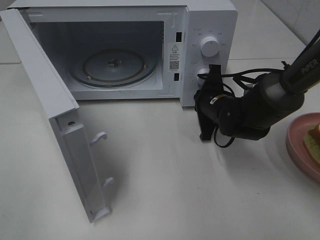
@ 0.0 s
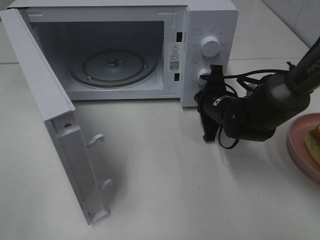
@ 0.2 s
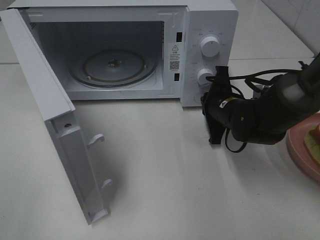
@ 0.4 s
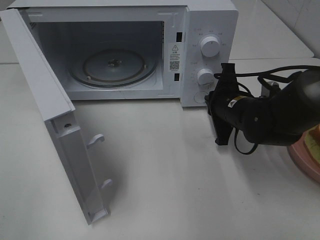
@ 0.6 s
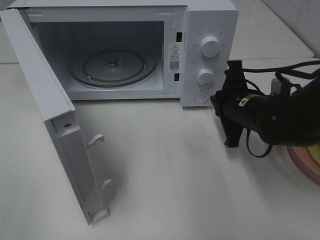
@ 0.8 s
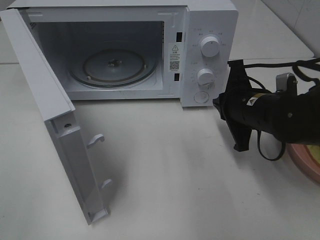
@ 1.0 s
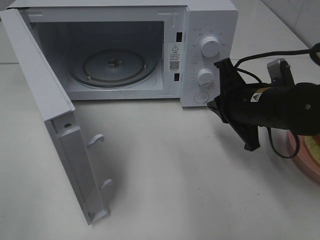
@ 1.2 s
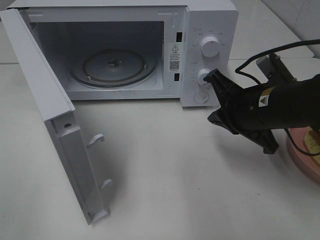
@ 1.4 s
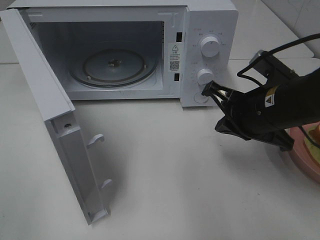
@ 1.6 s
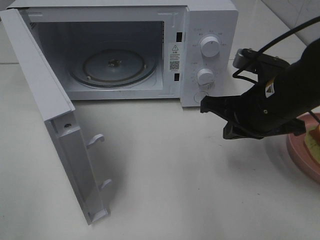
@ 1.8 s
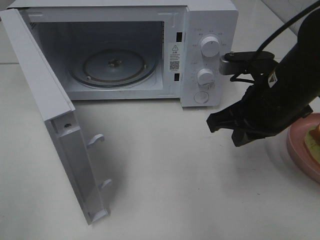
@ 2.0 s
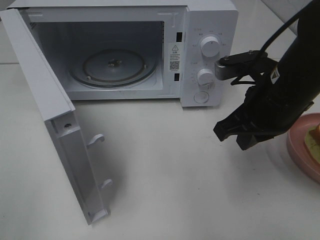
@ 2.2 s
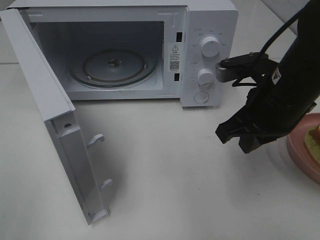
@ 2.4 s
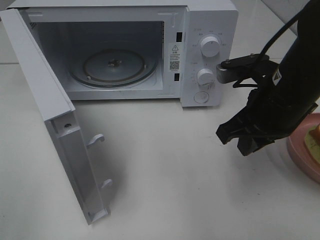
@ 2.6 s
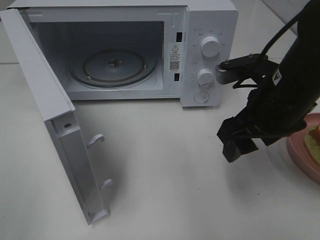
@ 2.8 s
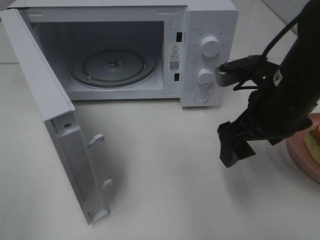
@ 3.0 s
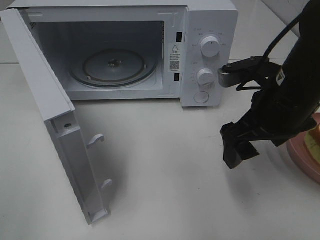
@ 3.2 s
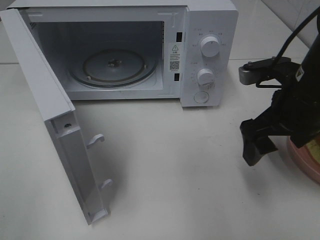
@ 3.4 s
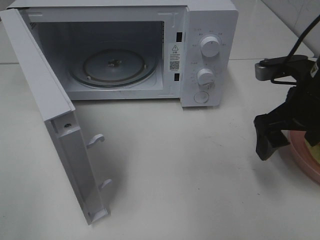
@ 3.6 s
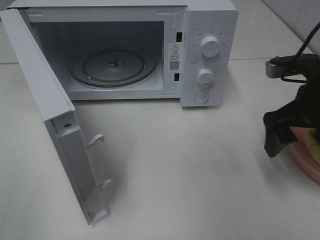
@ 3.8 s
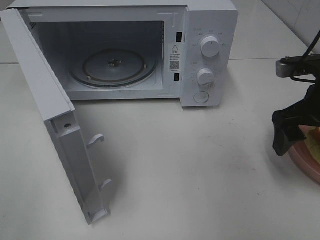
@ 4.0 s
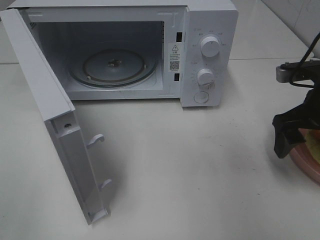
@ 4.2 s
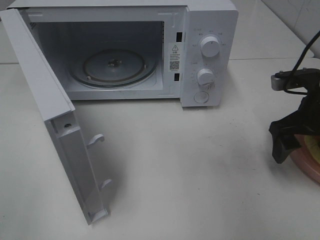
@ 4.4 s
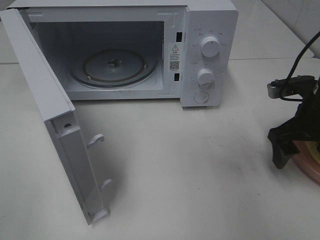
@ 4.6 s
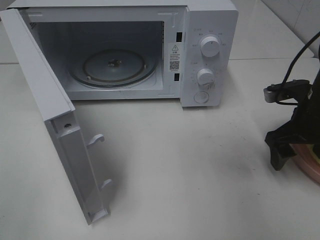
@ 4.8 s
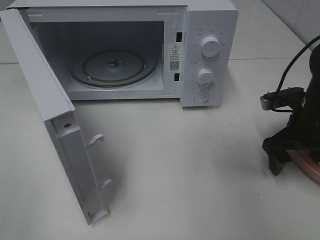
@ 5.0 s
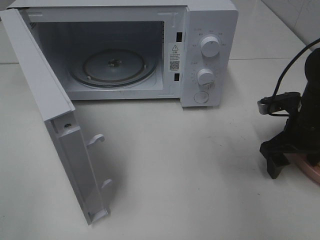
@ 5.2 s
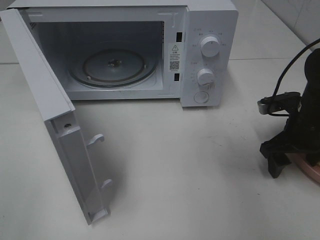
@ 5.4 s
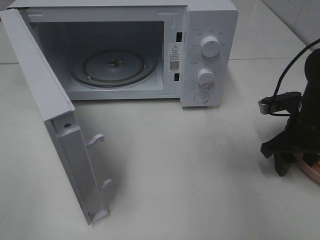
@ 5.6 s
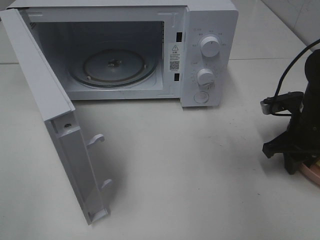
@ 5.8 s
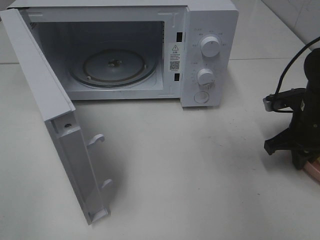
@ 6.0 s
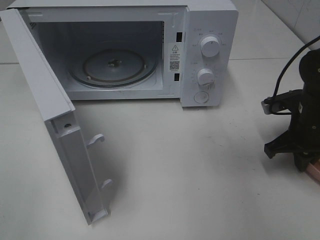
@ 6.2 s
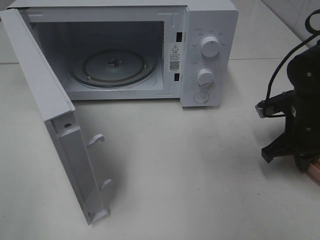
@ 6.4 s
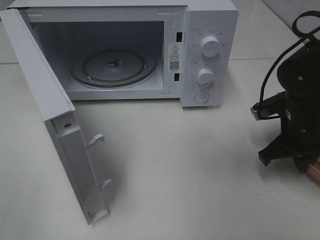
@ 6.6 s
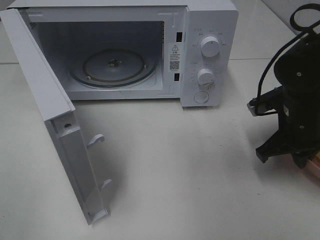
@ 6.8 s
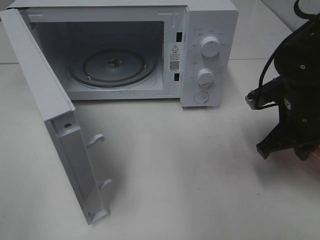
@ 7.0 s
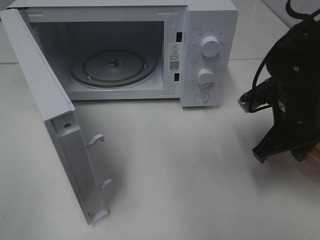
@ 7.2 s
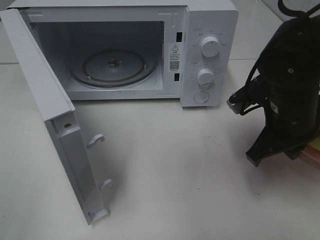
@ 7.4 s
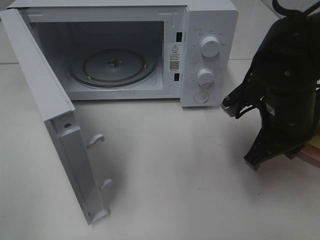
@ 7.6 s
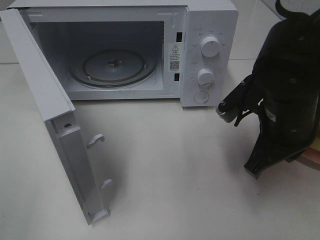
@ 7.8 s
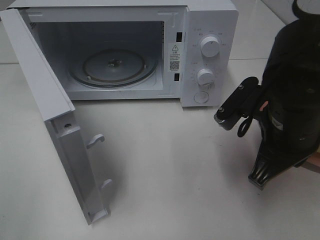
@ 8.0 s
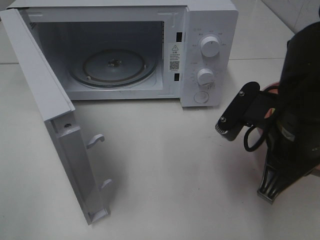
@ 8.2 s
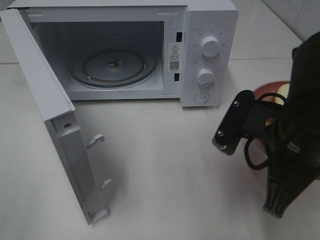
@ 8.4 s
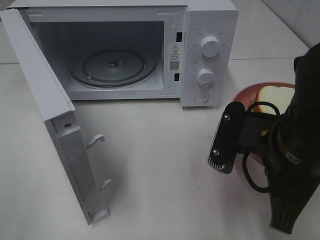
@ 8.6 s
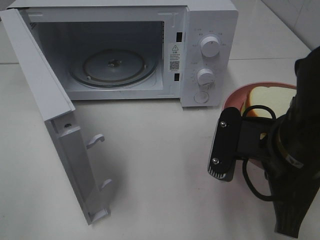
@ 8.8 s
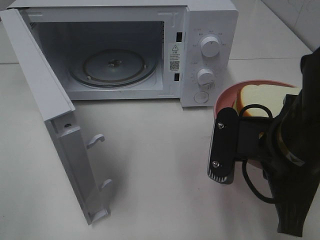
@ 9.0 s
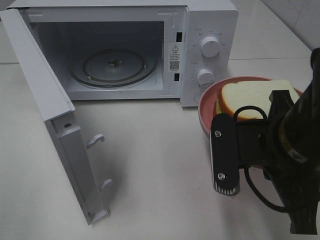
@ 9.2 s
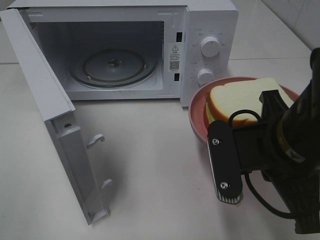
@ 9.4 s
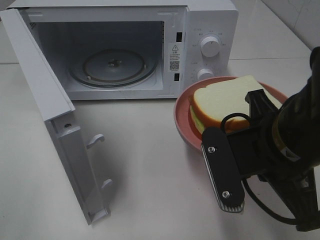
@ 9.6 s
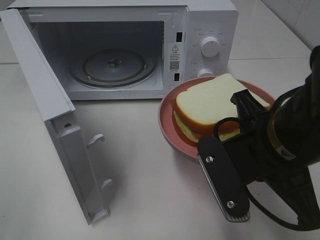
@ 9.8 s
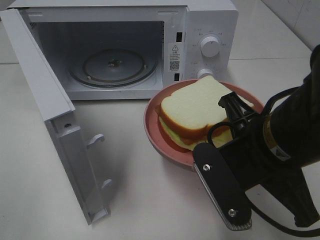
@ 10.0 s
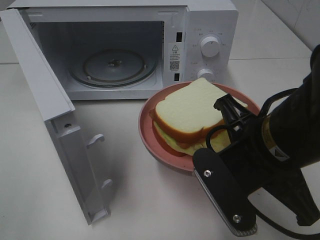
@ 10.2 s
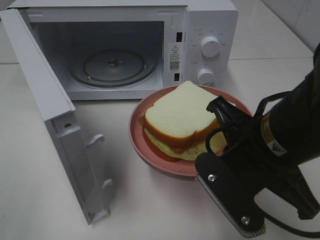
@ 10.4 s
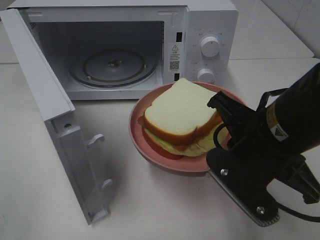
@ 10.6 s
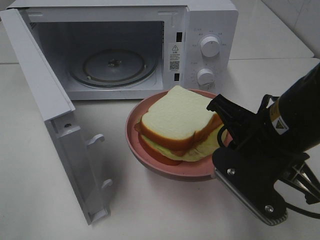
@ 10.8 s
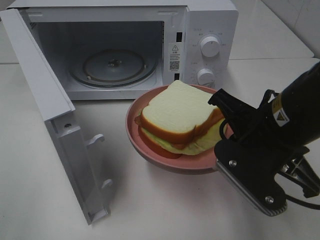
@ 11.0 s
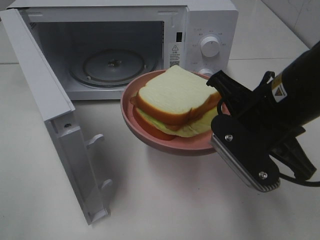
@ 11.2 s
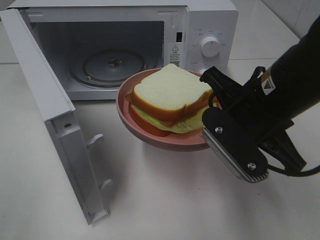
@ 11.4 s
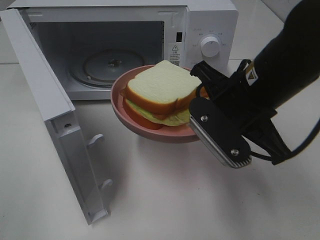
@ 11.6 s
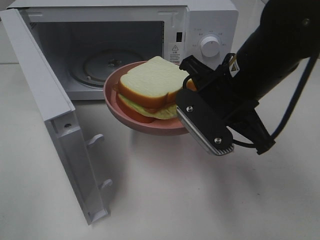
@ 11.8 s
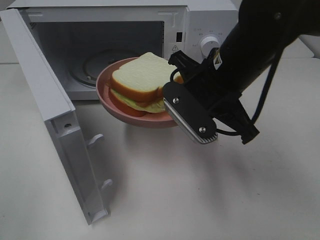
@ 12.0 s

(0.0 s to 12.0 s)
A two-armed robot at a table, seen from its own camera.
Task of the whole recording: Heat Sandwich.
Step, 0.6 s - 6.0 s: Right hand: grab the plate with the sandwich.
0.0 s - 1.6 s: The right gripper shifts about 15 cm backward and upward.
1.6 s - 3.0 s: The right gripper opens up.
3.0 s - 4.4 s: The right gripper heads to the right, covering approximately 10 cm.
4.4 s - 6.0 s: The right gripper heads downward, covering approximately 5 cm, and closes up.
6.0 s - 7.6 s: The right gripper is displaced to the left, upward and backward by roughly 15 cm.
7.6 s - 9.0 s: The right gripper travels backward by roughly 10 cm.
10.4 s - 12.0 s: The right gripper travels forward by approximately 10 cm.

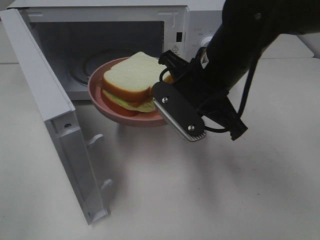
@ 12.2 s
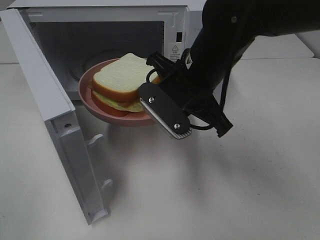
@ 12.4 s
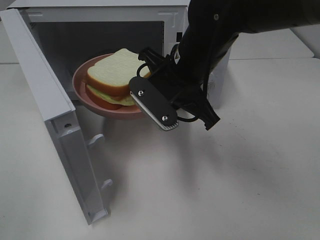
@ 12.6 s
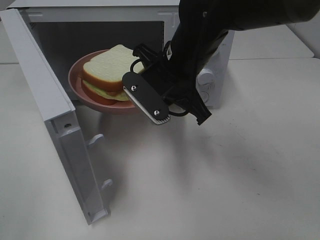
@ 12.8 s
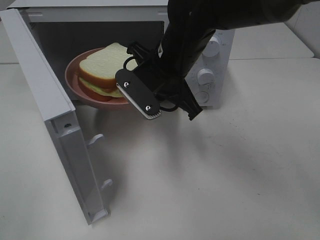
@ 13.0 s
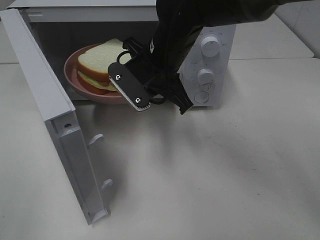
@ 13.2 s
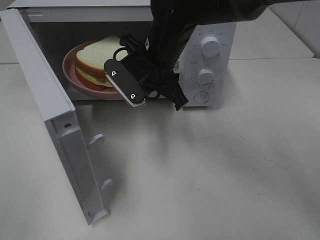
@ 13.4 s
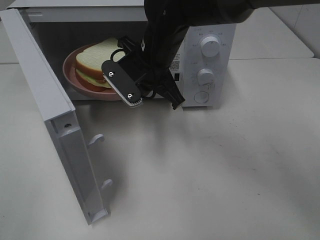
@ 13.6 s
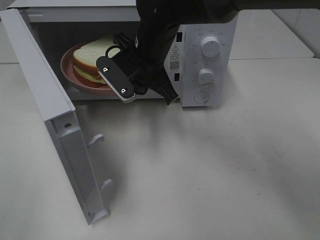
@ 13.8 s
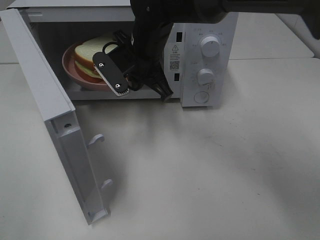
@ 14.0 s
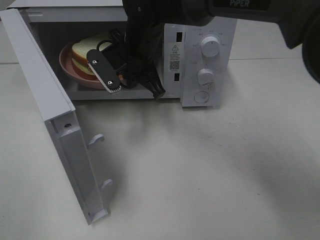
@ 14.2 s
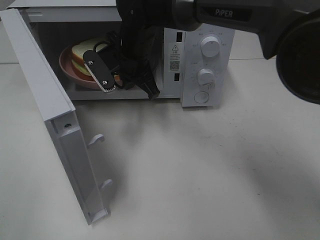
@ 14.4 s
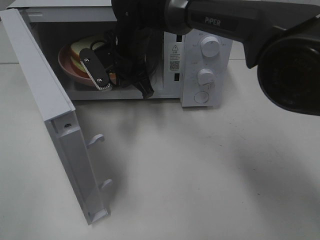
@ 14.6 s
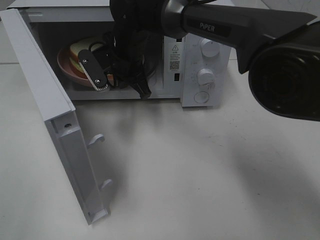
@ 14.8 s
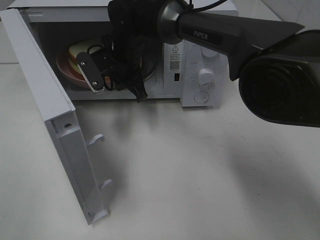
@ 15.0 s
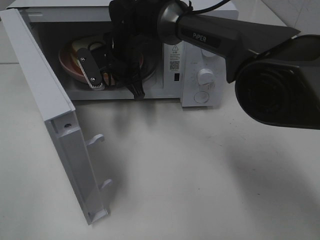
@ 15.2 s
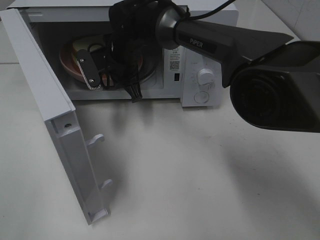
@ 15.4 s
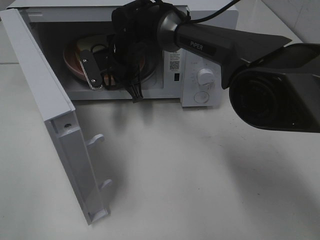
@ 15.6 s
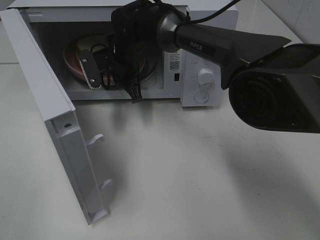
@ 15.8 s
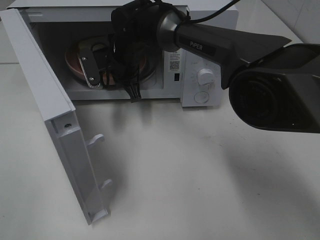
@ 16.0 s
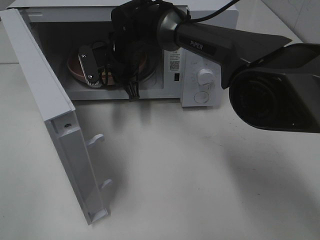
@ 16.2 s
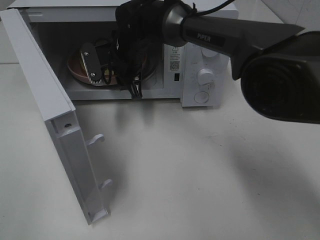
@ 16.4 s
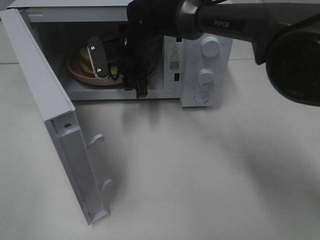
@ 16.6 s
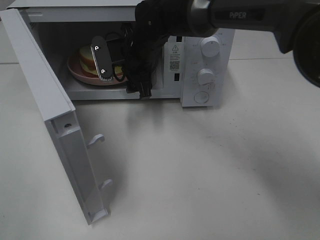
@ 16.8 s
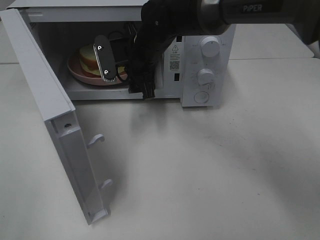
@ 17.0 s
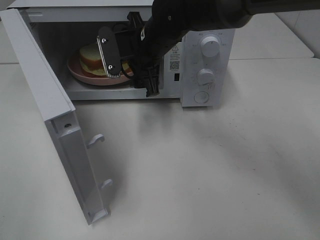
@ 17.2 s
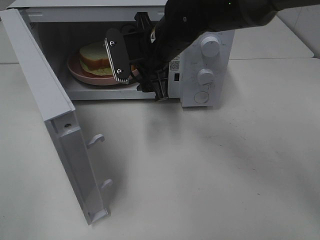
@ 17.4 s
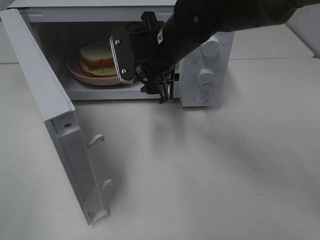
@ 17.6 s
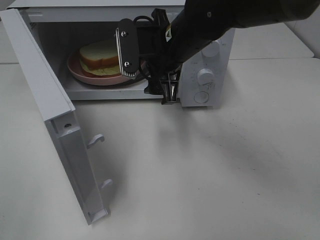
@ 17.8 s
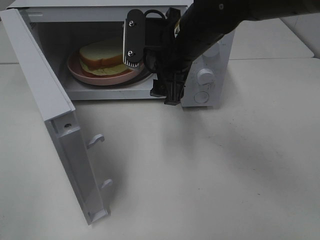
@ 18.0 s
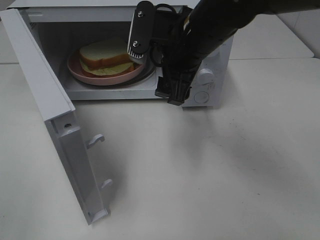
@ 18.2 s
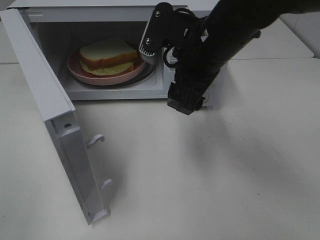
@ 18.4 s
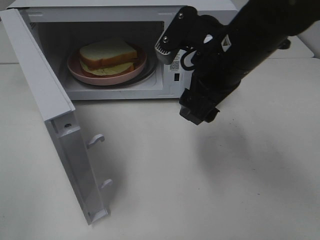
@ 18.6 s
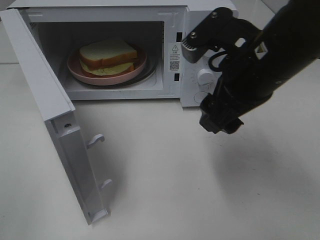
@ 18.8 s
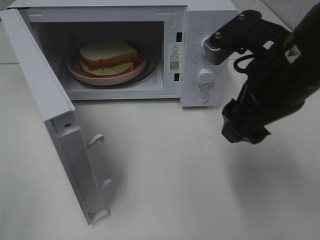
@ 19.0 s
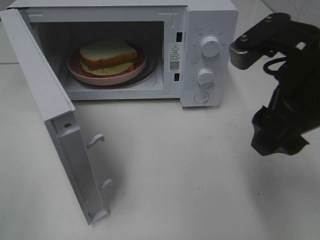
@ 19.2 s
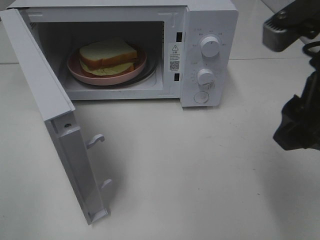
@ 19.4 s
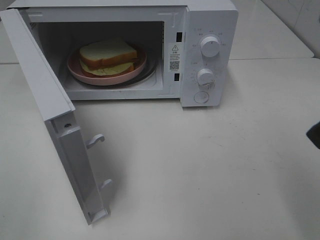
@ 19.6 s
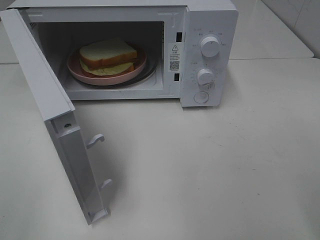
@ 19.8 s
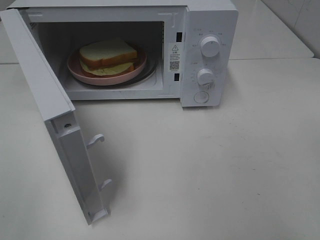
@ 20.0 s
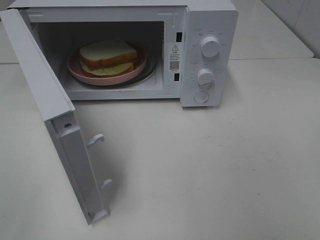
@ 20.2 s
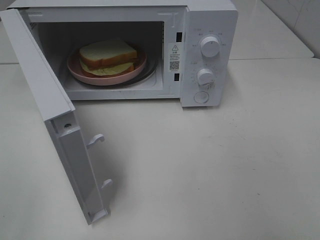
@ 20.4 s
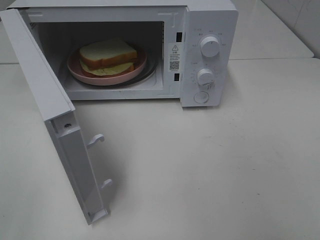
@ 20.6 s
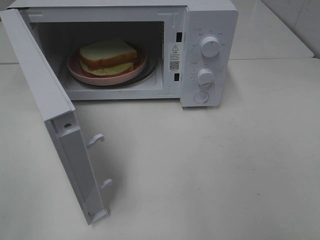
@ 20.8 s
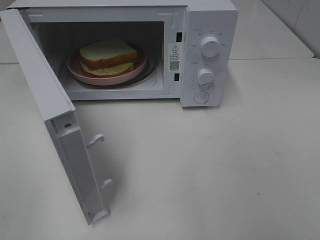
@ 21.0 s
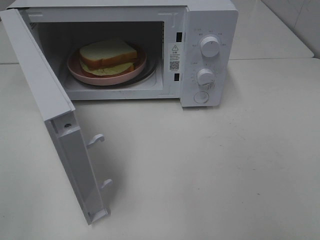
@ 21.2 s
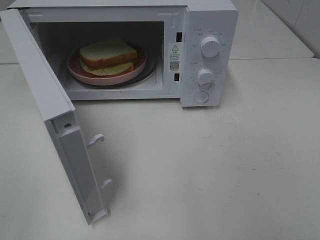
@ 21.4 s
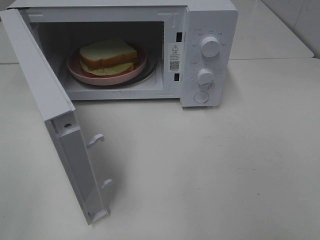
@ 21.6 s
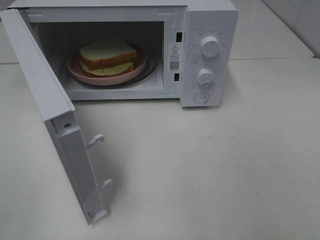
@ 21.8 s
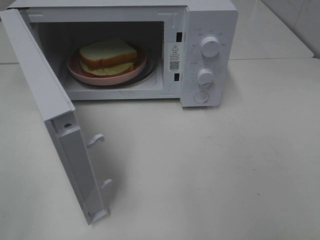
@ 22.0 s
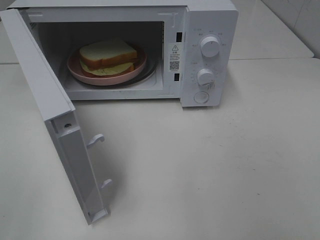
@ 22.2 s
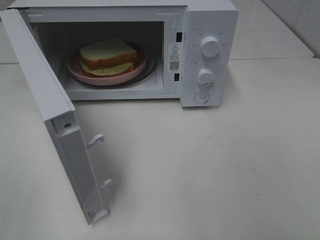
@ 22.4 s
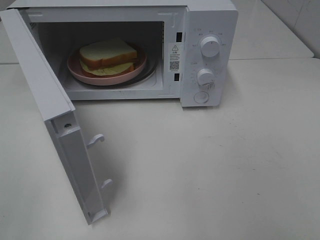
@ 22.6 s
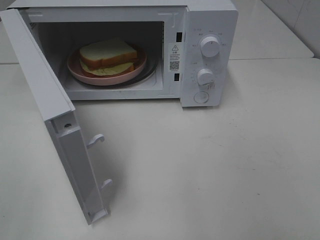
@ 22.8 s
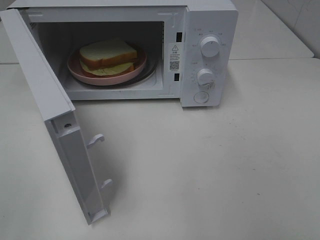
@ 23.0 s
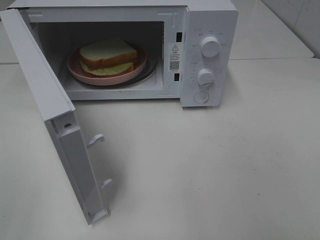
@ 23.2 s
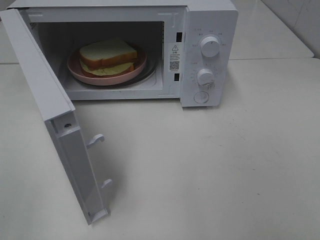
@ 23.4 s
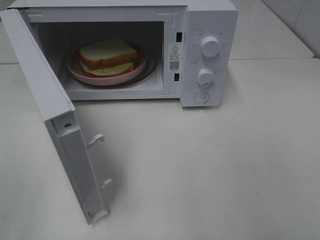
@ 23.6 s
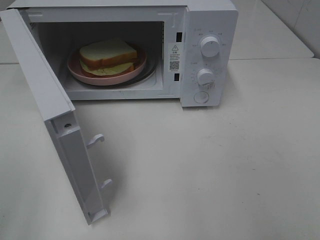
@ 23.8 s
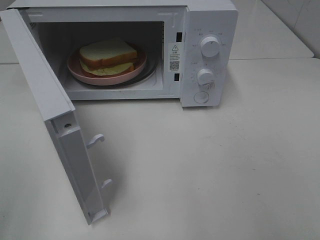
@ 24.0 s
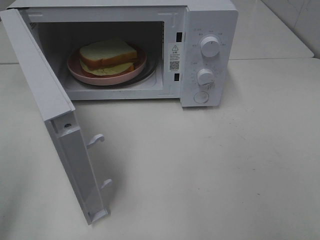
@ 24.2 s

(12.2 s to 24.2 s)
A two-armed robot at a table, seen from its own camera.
Task of the whole recording: Heat Sandwich.
Step, 12.2 s - 17.0 s: Right hand: place the plate in the microwave.
12.2 s - 13.8 s: The right gripper travels forward and to the left by approximately 15 cm.
13.8 s - 15.2 s: The right gripper shifts approximately 5 cm forward.
15.2 s - 16.6 s: The right gripper opens.
16.6 s - 18.2 s: The right gripper shifts approximately 15 cm backward, to the right and upward.
18.2 s - 19.8 s: The right gripper goes approximately 30 cm backward, to the right and upward.
21.2 s - 22.6 s: The two grippers keep their place.
